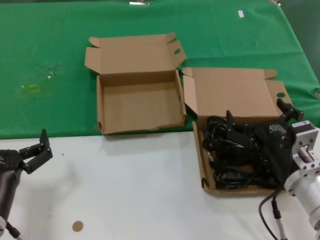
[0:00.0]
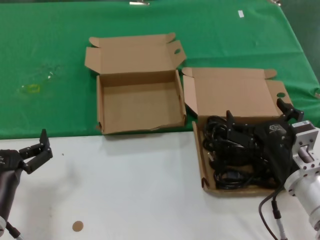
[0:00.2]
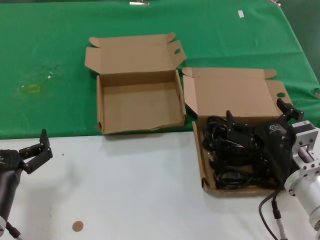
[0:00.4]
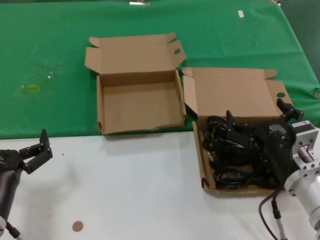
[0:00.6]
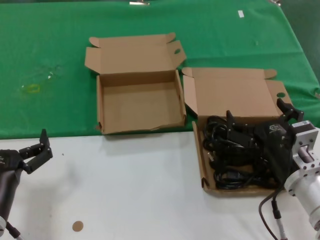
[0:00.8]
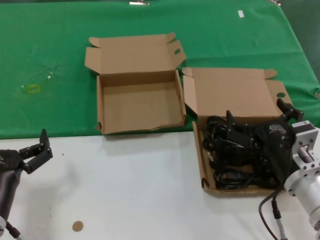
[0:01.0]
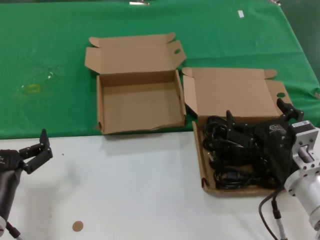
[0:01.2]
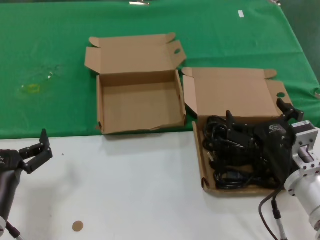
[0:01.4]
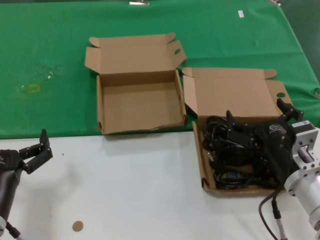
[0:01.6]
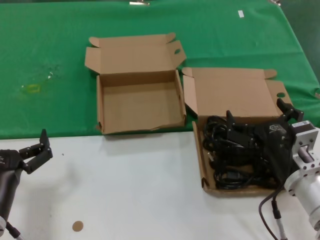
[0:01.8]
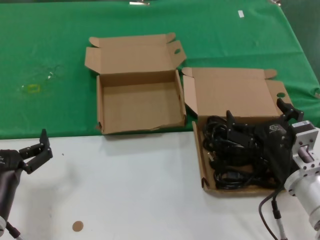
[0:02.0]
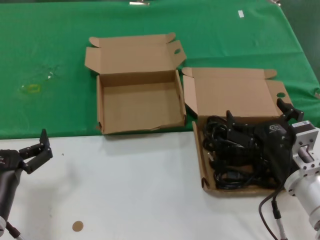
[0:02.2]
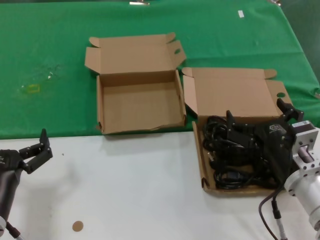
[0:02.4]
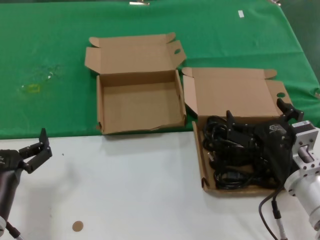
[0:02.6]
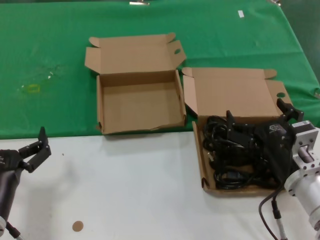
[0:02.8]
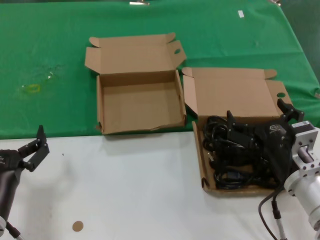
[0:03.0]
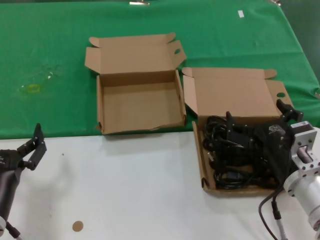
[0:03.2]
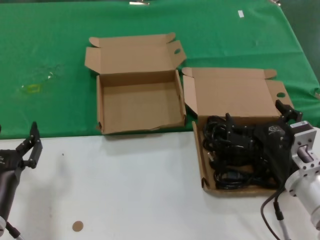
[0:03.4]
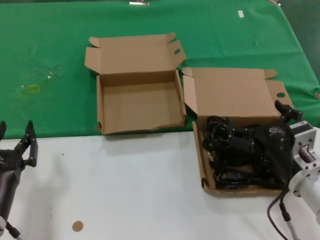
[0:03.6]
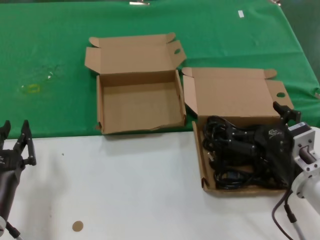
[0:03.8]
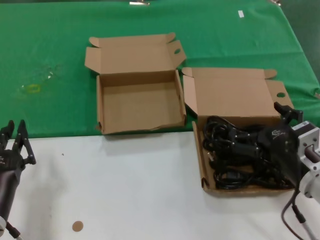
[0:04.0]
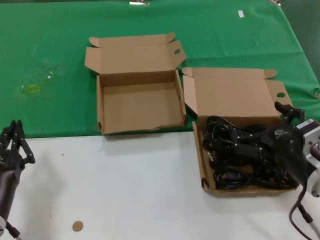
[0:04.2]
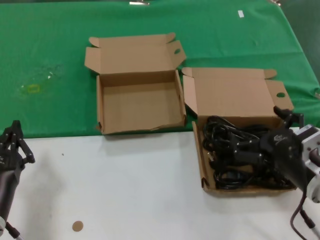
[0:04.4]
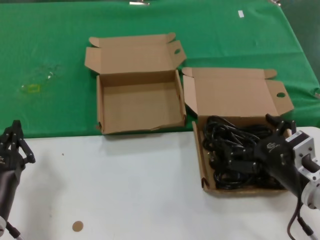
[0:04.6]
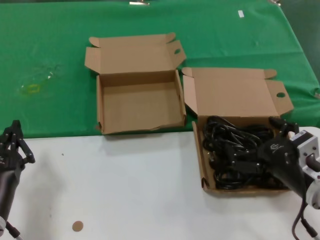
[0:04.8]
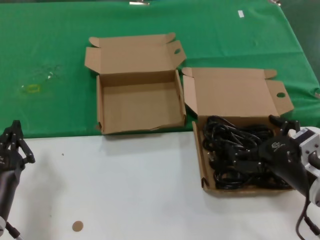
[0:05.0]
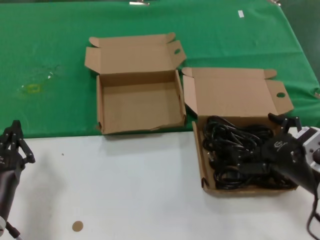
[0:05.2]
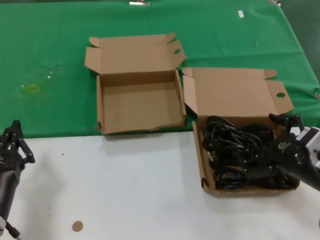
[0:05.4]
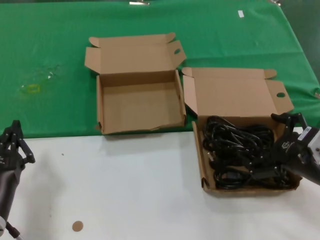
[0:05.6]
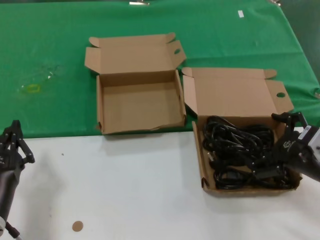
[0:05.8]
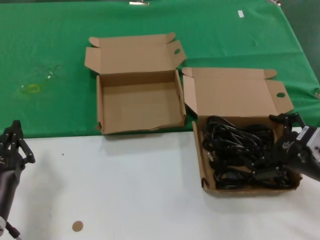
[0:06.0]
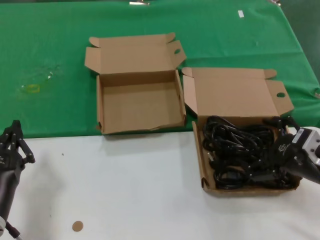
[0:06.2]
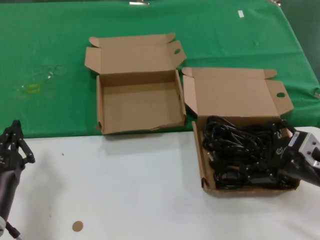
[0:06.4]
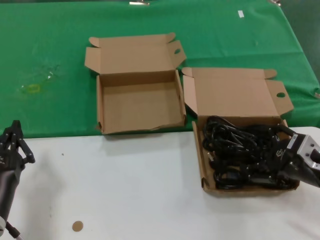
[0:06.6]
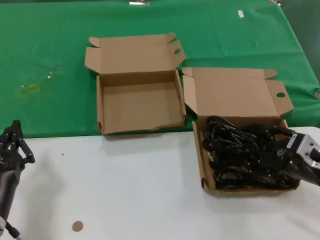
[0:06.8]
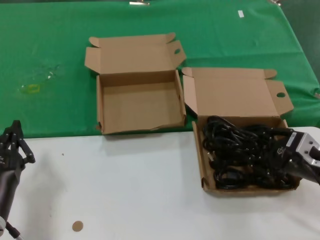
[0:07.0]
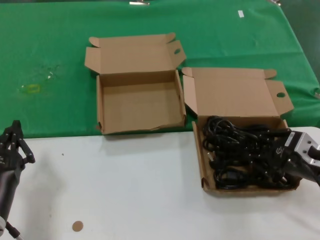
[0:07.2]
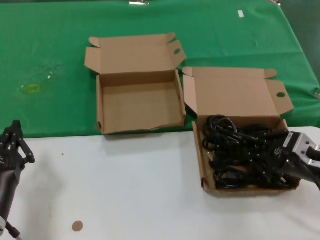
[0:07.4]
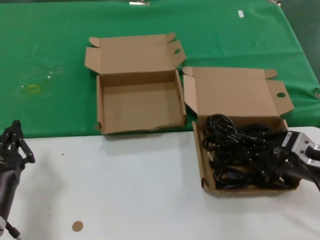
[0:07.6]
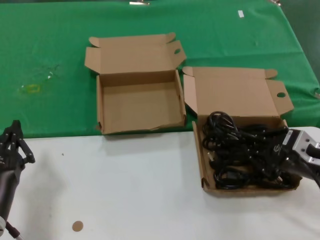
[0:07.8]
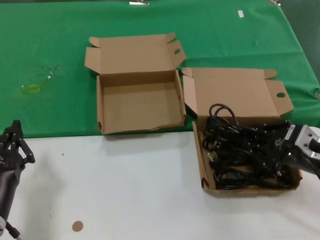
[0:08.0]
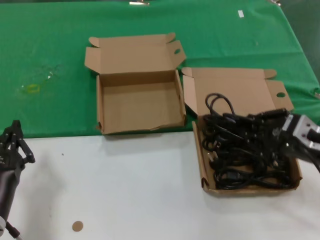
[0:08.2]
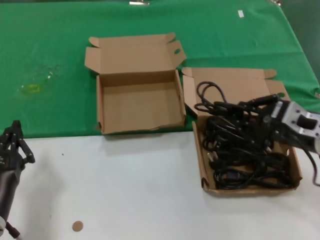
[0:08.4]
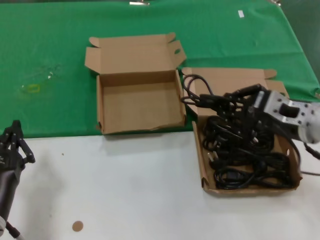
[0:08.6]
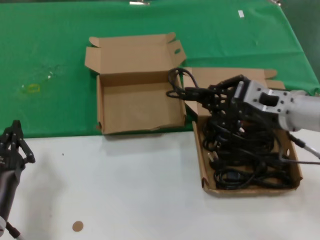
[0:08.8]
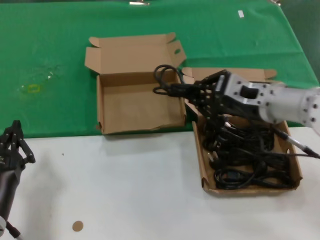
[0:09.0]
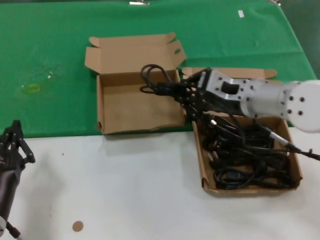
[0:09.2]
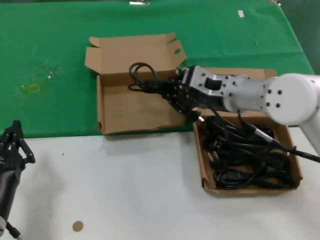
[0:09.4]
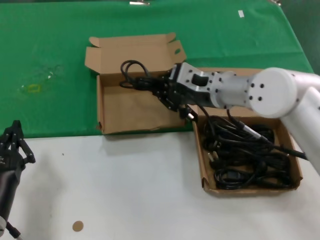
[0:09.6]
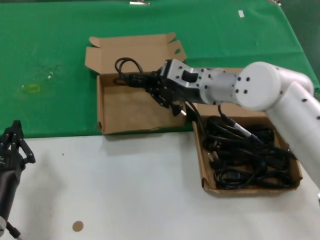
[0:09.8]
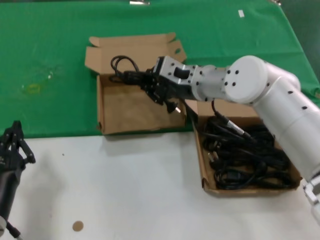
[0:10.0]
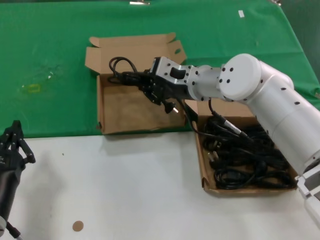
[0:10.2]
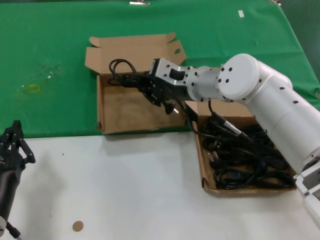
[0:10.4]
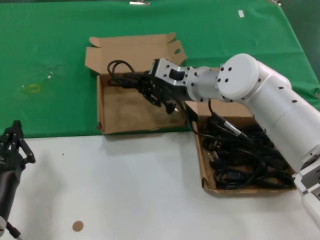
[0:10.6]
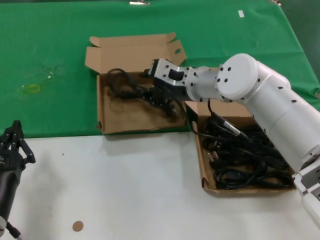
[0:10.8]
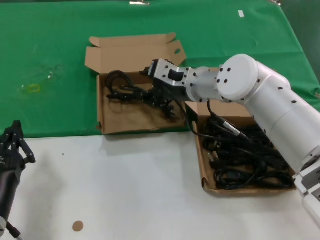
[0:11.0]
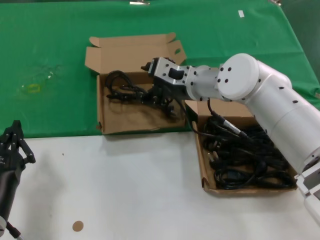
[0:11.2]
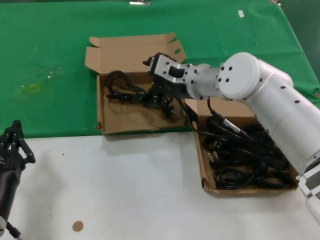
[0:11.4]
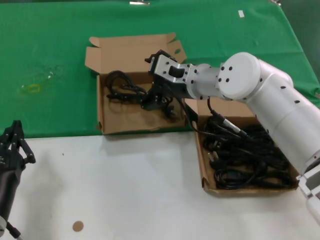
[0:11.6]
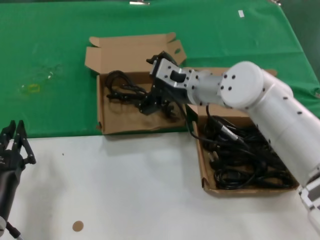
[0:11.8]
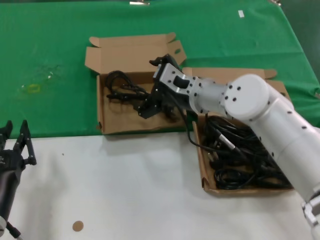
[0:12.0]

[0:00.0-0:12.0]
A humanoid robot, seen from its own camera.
Task of the whole recording: take the parts from the box containing them and put them into an empty box.
Step, 0.0 to 7.6 s: Grasp the data cable.
Step, 7.8 to 11.0 s: Place the data cable in the another box.
0.0 to 3.0 s: Both hands stay put.
3.0 to 4.4 s: There are only small adjustments of the hands.
4.4 to 6.0 s: The right hand heads to the right, covering some 5 cm.
6.0 to 7.6 s: There are only small adjustments of the hands.
7.6 to 9.0 s: The right hand travels to the left, upward and forward by approximately 15 cm.
9.0 to 10.4 s: The right hand heads forward and to the left, covering some 15 cm.
10.4 to 12.0 s: The hands move only a little.

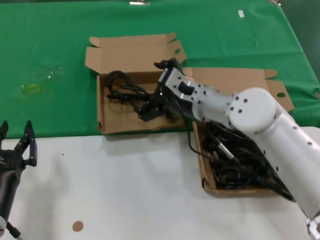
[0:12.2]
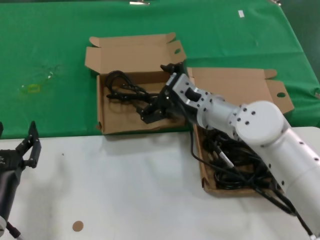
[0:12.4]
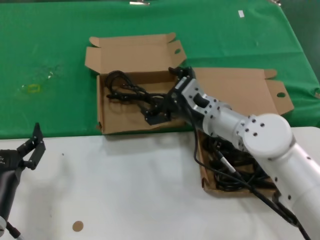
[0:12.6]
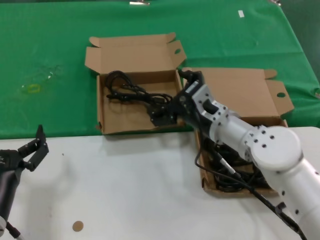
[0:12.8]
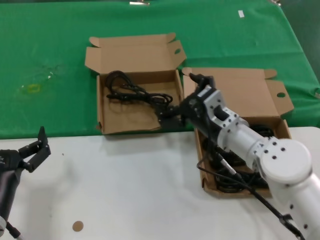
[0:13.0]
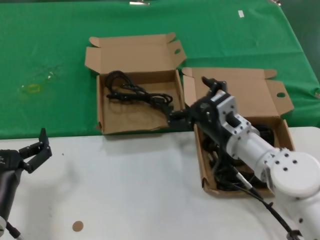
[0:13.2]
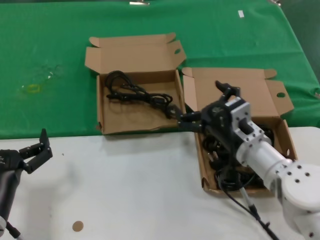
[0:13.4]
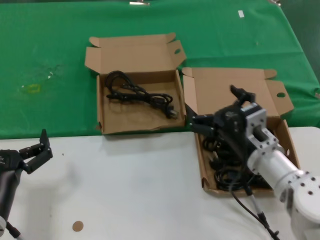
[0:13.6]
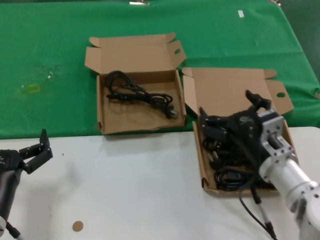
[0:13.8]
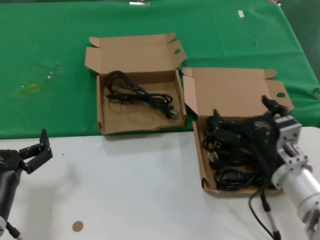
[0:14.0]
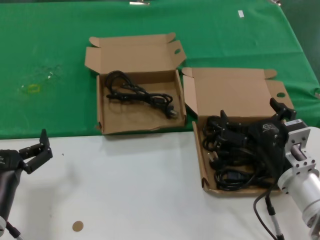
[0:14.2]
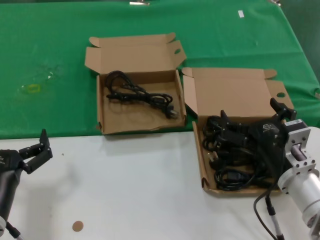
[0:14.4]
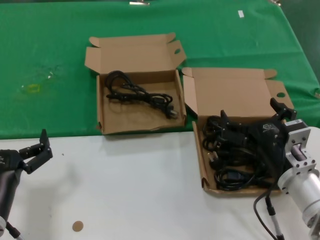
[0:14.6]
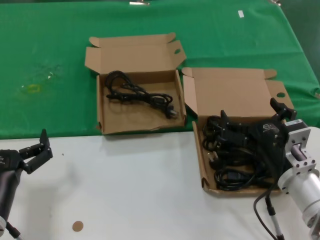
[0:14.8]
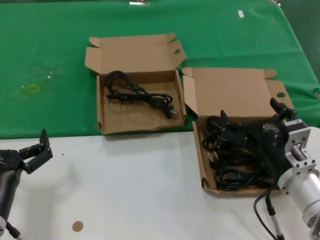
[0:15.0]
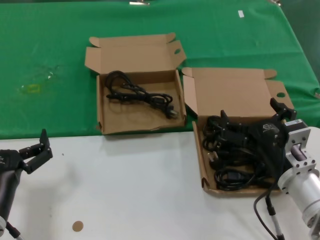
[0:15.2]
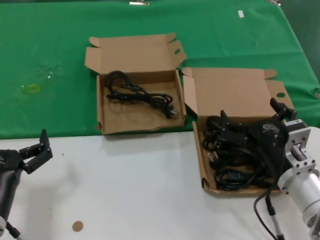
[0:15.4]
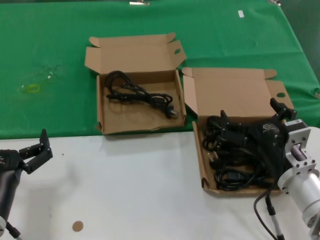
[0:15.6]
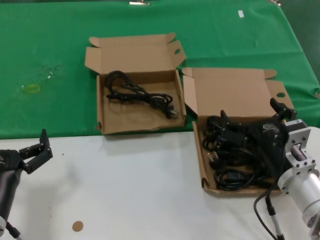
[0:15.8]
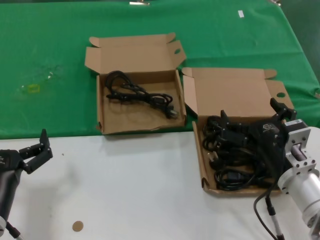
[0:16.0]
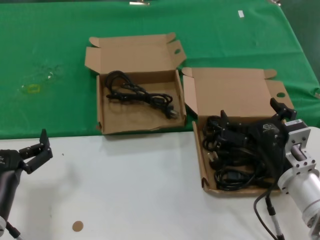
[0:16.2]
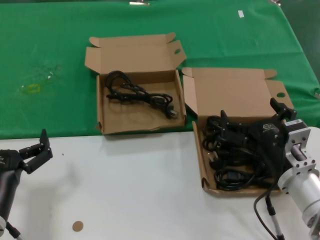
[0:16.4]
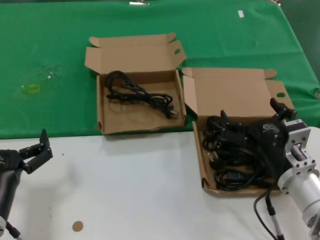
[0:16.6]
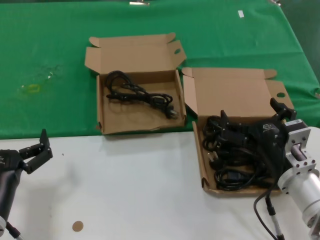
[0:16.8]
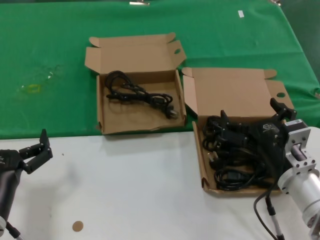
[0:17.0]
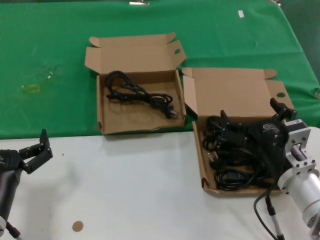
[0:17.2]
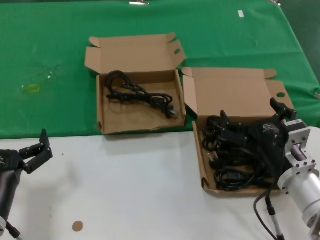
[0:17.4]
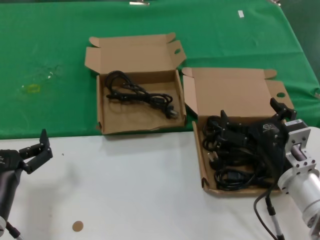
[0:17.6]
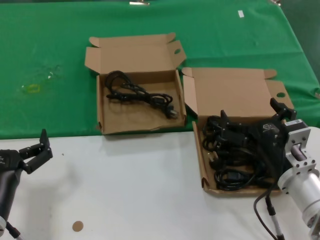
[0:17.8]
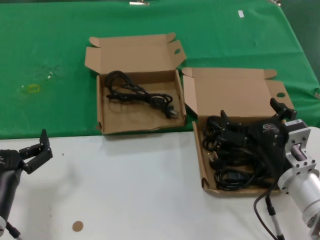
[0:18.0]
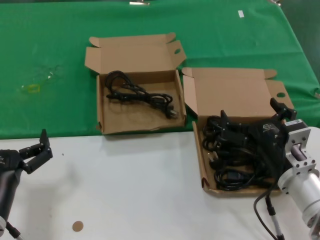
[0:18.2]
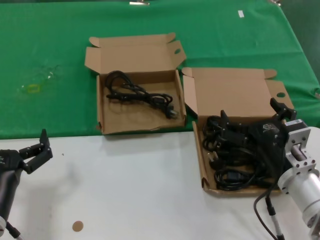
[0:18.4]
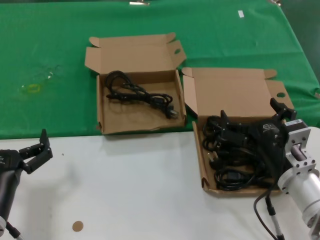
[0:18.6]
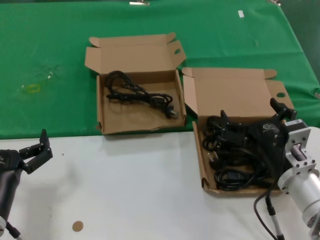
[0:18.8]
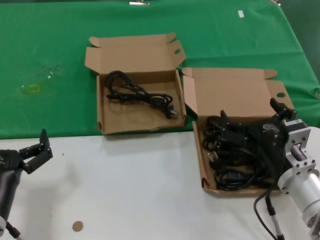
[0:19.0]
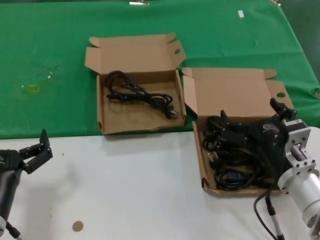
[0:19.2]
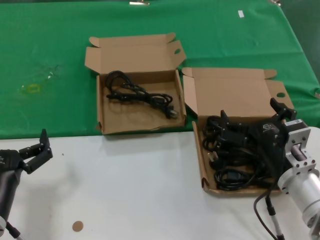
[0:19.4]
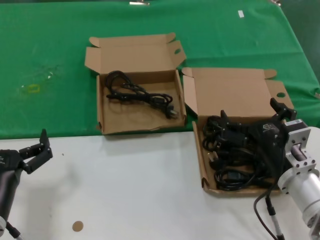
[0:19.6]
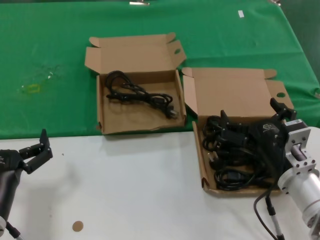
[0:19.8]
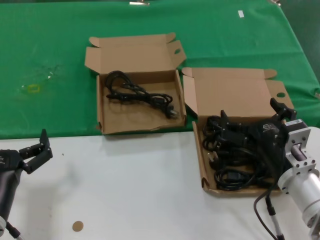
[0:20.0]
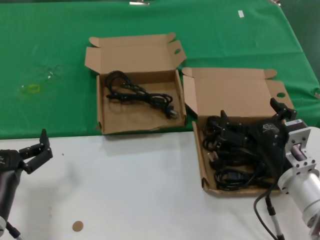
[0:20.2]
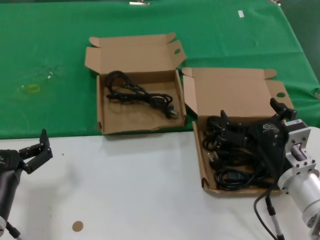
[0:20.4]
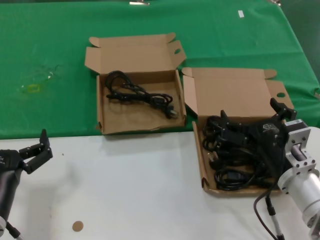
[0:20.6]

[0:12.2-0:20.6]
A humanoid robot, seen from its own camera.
Task of the whole recording: take the parts from the box containing them and put them into an empty box.
12.2 to 13.6 s: The right hand heads backward, downward and to the right, covering about 15 cm.
13.6 to 15.0 s: The right hand moves backward, roughly 5 cm.
15.0 to 20.6 s: Neither hand changes place.

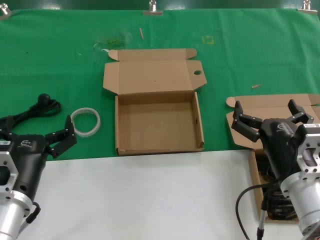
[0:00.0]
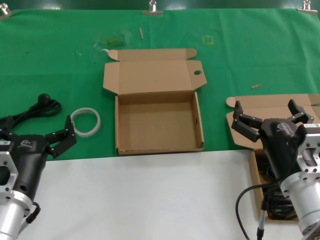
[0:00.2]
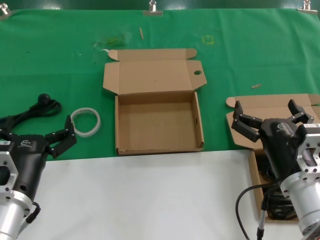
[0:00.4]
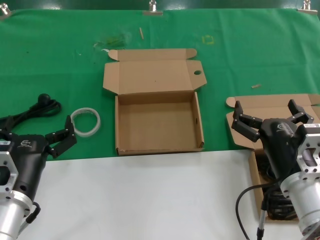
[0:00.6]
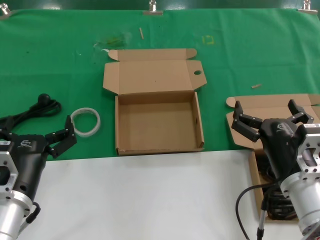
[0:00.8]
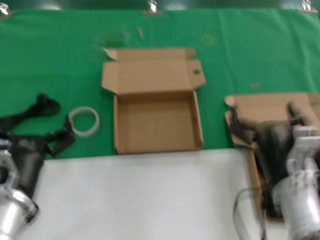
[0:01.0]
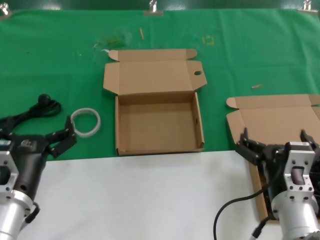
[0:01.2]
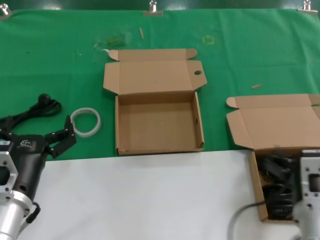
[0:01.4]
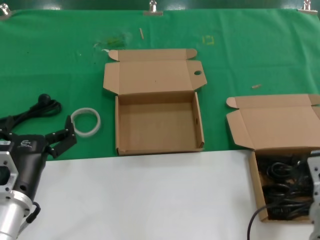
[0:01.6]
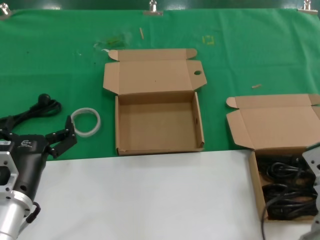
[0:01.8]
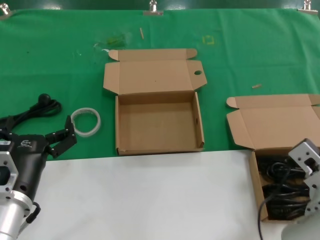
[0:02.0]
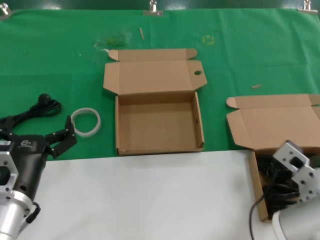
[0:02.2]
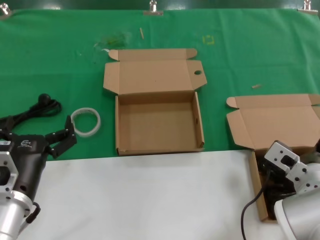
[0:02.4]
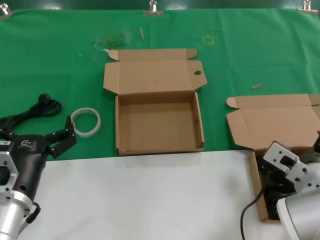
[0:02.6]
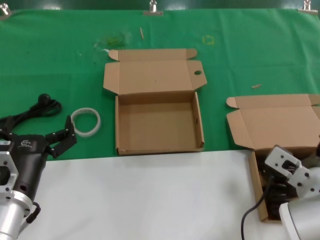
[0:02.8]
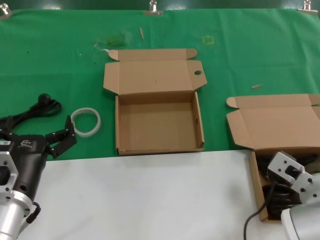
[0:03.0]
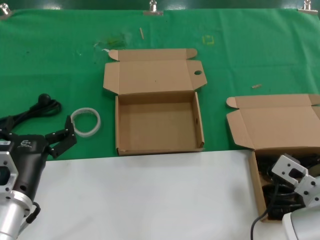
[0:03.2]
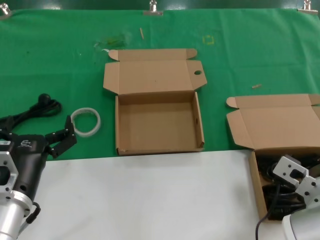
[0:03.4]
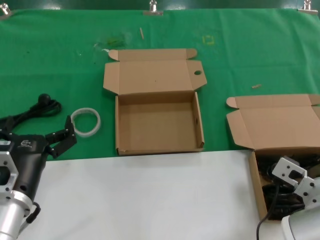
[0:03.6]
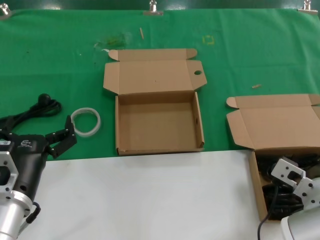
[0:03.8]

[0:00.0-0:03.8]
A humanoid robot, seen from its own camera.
Task of the whole recording: take the parts from the box containing them and put them into an empty box.
0.0 to 1.2 s: The hands move only a little.
1.2 to 2.6 s: The right hand travels forward by approximately 5 cm.
2.6 to 3.8 s: The hands make only small movements.
